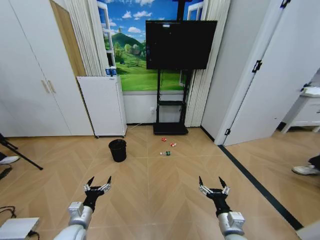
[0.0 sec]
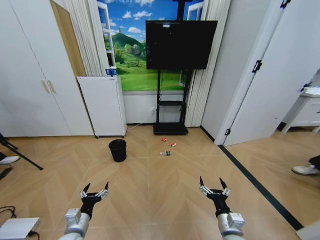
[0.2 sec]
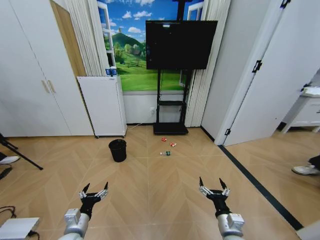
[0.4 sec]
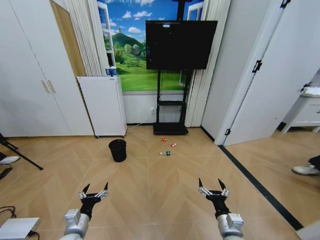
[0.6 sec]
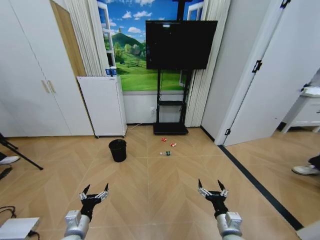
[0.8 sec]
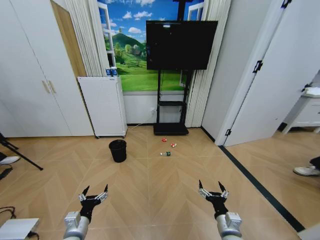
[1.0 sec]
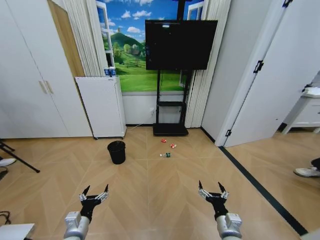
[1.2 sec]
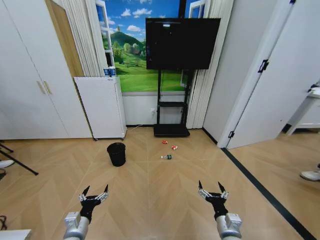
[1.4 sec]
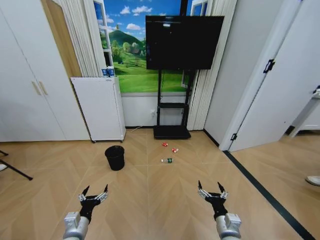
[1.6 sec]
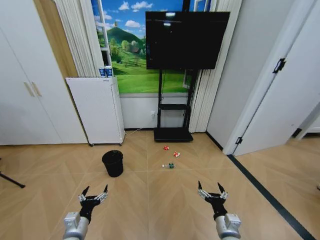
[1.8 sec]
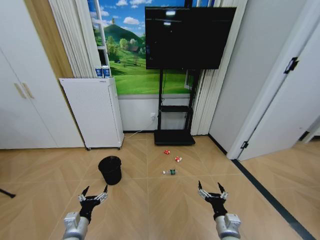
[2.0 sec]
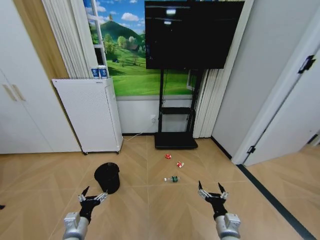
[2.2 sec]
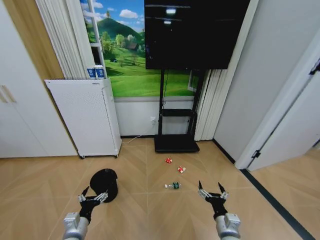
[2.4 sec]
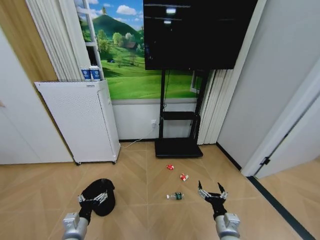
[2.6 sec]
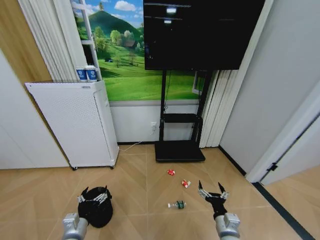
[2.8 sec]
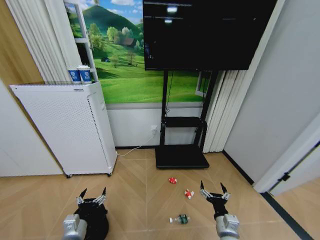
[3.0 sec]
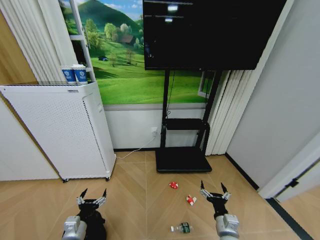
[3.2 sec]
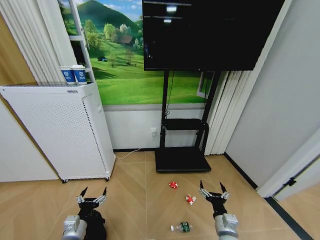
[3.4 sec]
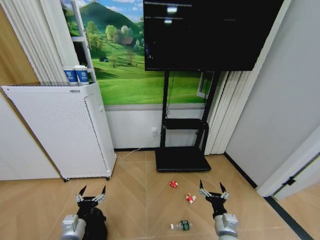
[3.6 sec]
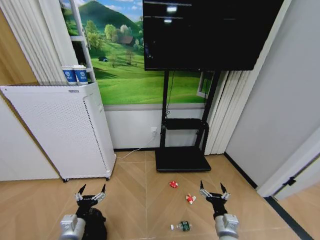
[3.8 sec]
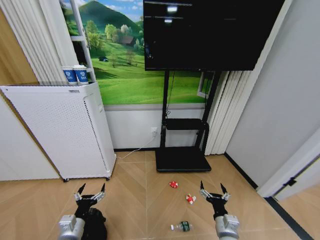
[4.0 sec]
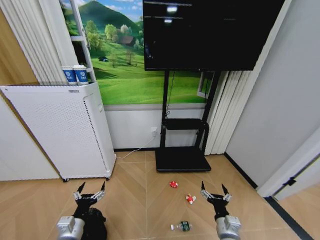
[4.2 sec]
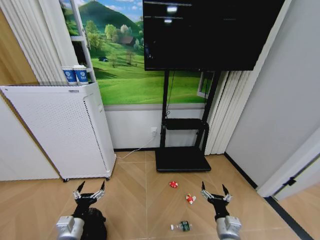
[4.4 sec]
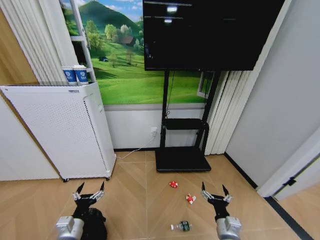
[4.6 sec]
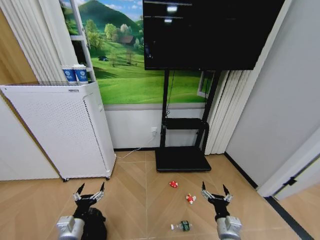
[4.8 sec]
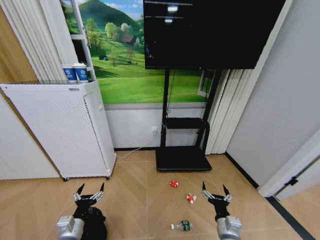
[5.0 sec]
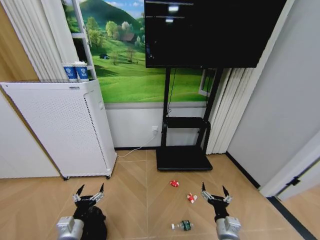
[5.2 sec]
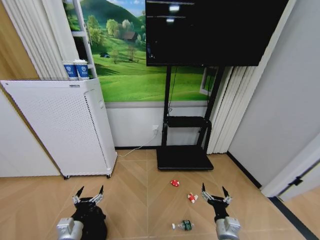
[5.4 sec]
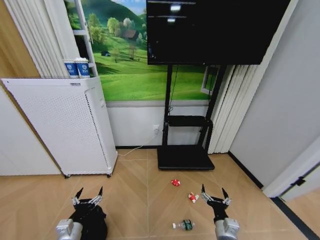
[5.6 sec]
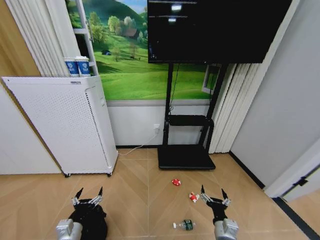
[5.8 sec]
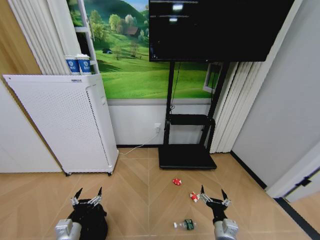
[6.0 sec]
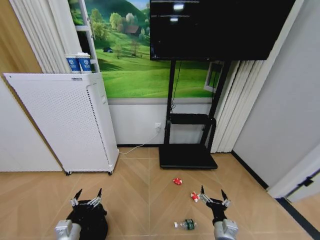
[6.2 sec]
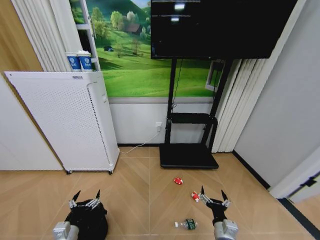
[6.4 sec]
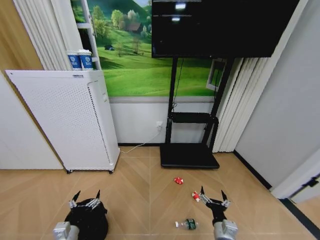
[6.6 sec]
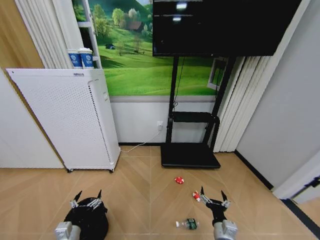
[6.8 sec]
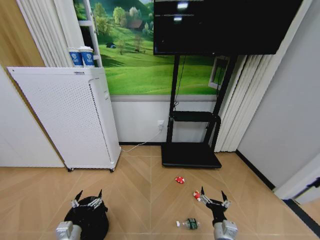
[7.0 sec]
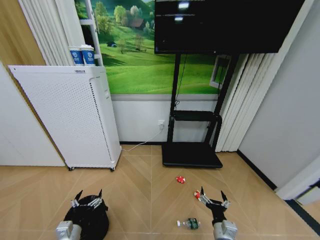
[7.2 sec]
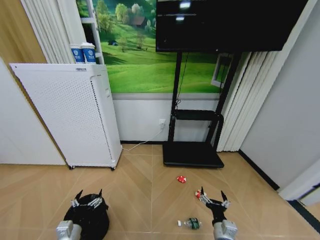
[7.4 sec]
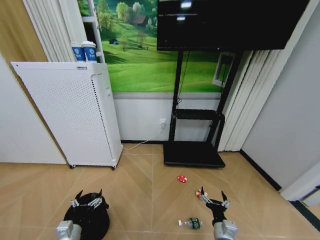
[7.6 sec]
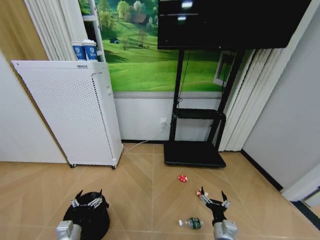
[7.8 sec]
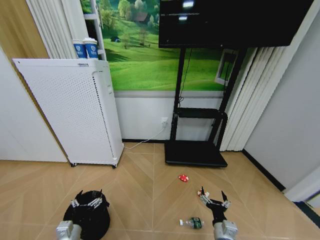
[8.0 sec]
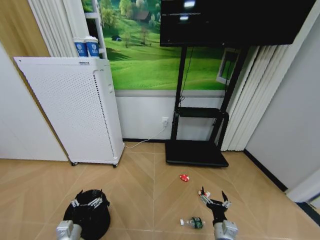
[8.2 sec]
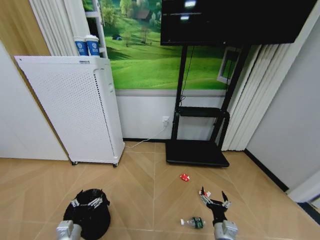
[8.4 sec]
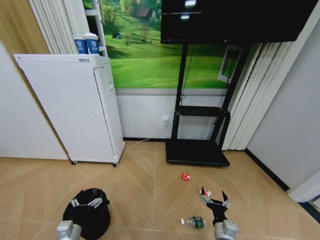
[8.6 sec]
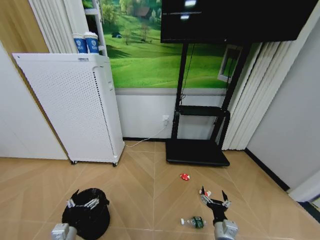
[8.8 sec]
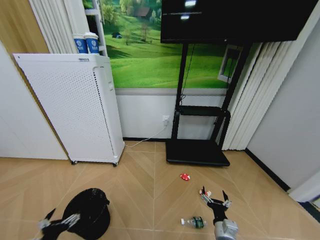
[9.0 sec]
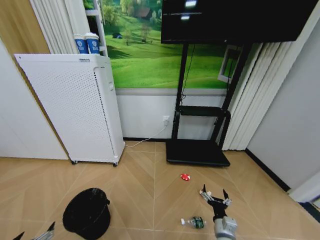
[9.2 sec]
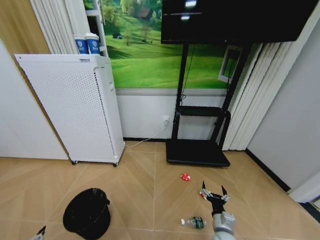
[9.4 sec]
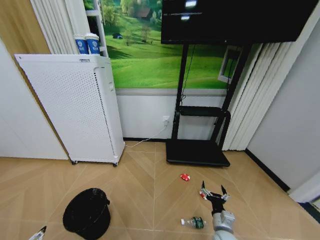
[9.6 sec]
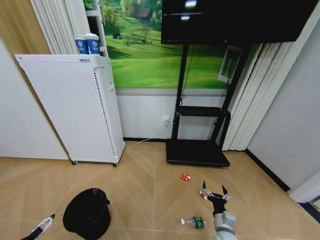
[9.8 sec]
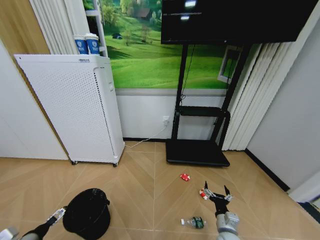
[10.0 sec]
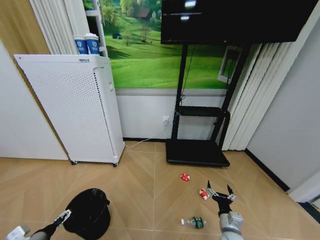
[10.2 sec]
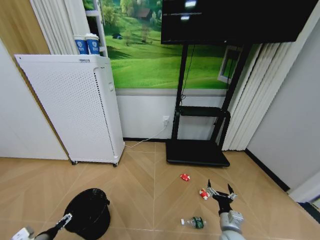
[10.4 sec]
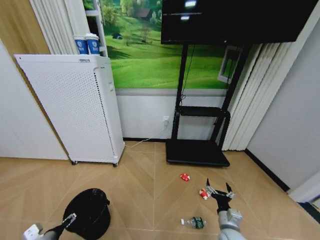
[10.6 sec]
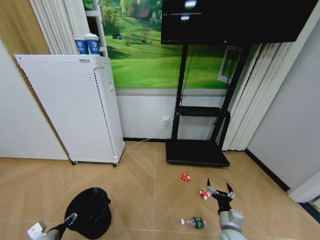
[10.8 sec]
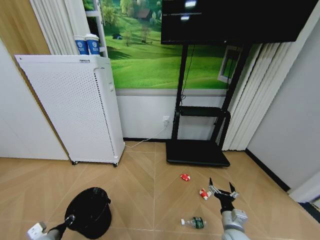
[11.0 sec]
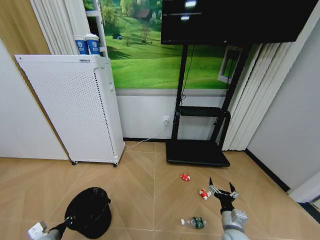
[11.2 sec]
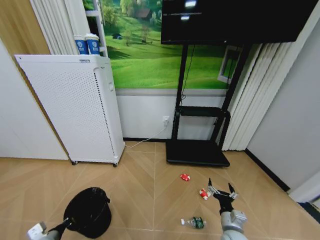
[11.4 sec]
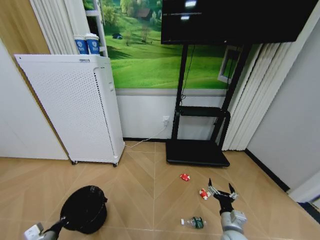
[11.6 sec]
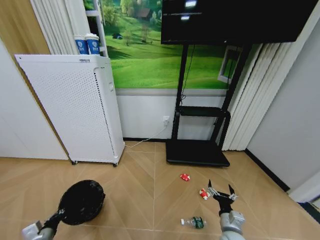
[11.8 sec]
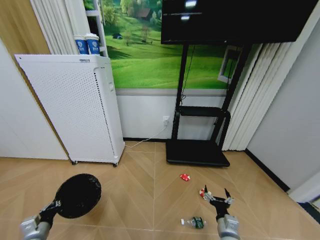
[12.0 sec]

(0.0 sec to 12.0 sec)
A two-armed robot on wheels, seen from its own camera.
Task of the whole recording: Pick up the trash bin and place the garbage on the floor into it.
3.0 sec - 4.4 sec: The grippers make only small movements.
7.6 sec - 9.0 sec: The left gripper moves backward, approximately 5 cm.
9.0 sec - 10.4 sec: The left gripper is displaced to the left and forward by roughly 10 cm.
10.4 sec - 12.0 sec: The left gripper closes its fingers.

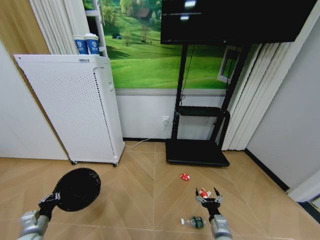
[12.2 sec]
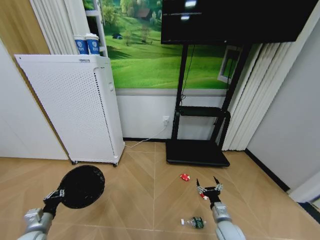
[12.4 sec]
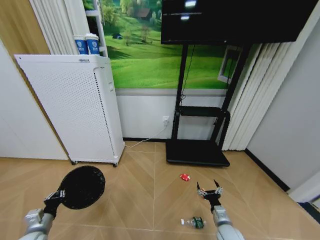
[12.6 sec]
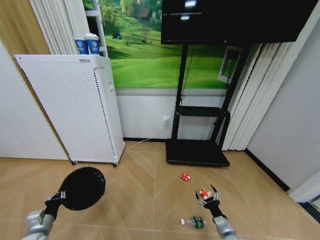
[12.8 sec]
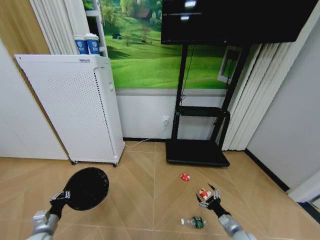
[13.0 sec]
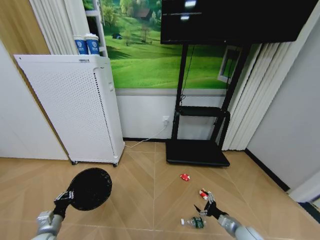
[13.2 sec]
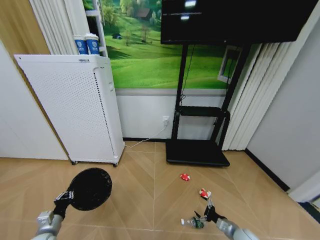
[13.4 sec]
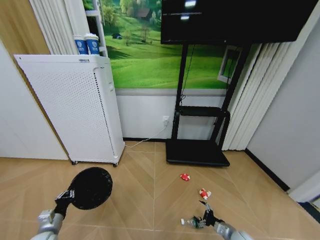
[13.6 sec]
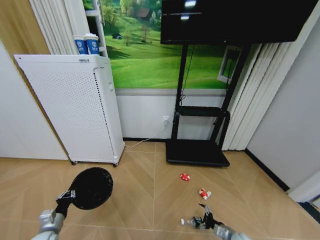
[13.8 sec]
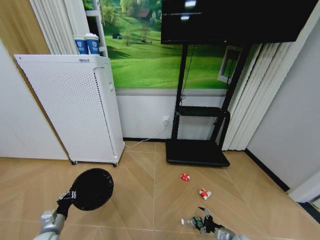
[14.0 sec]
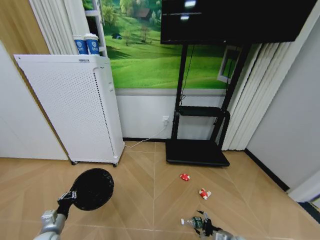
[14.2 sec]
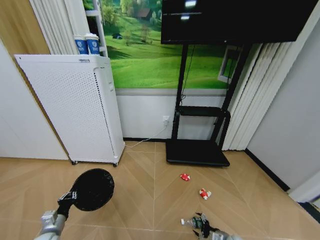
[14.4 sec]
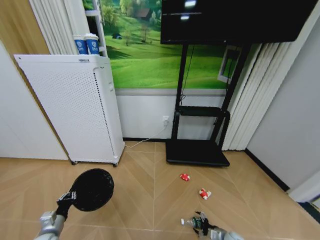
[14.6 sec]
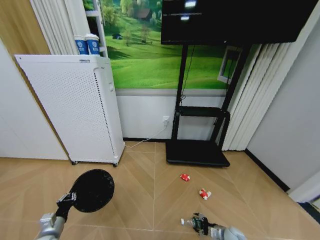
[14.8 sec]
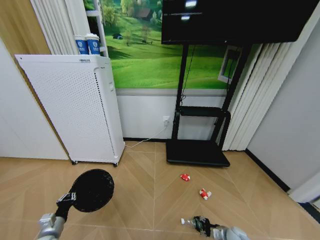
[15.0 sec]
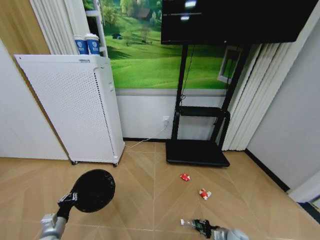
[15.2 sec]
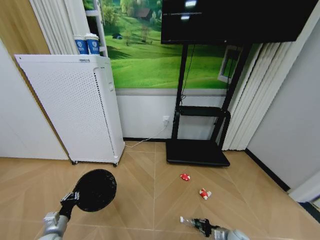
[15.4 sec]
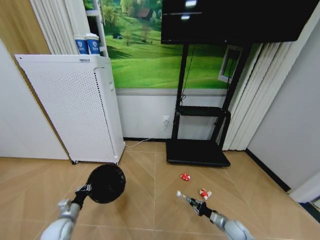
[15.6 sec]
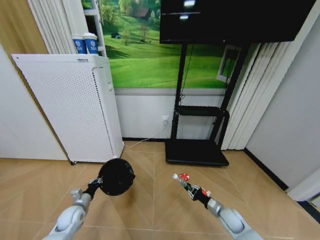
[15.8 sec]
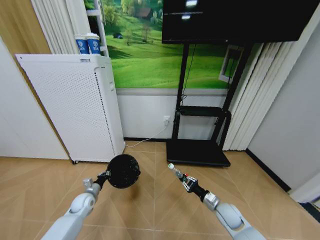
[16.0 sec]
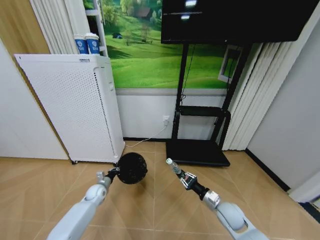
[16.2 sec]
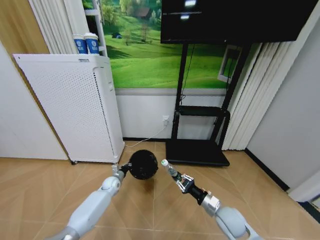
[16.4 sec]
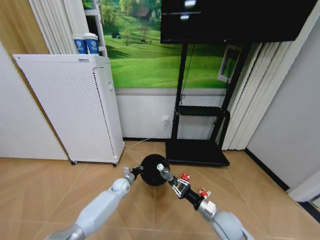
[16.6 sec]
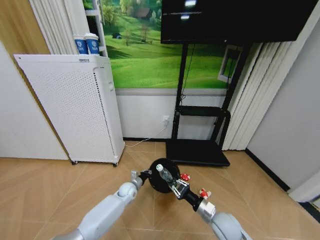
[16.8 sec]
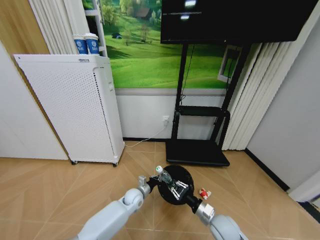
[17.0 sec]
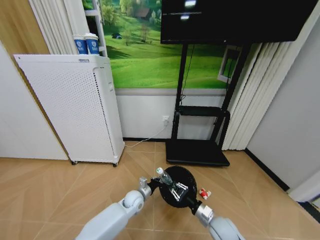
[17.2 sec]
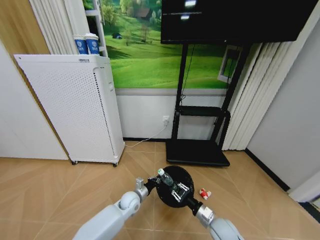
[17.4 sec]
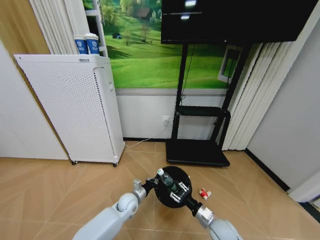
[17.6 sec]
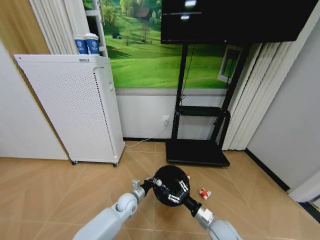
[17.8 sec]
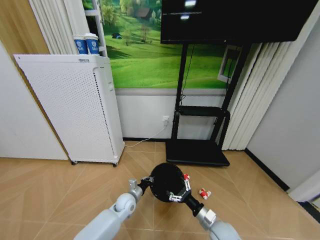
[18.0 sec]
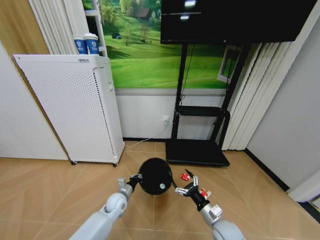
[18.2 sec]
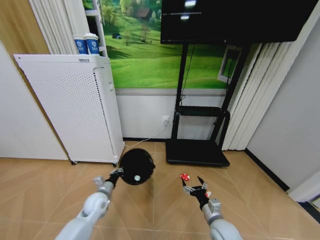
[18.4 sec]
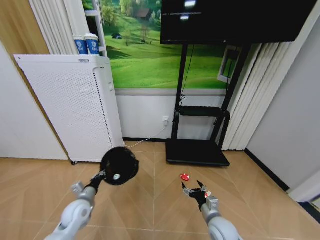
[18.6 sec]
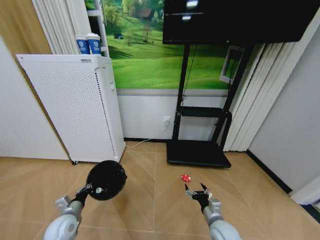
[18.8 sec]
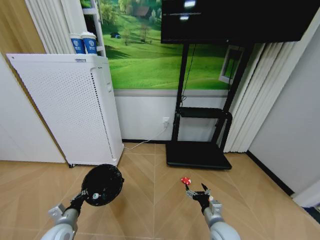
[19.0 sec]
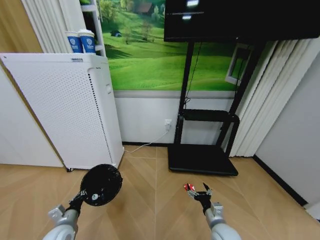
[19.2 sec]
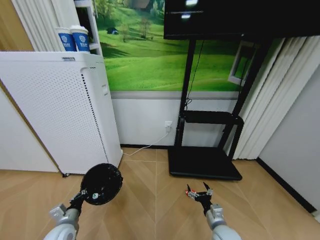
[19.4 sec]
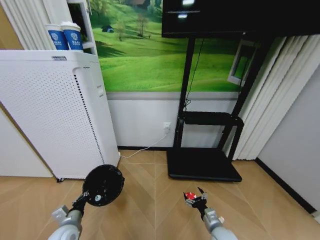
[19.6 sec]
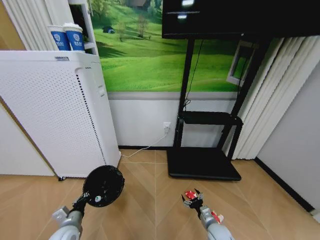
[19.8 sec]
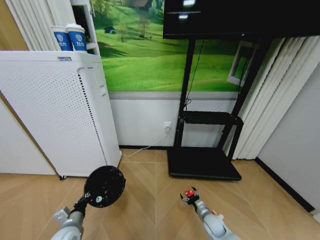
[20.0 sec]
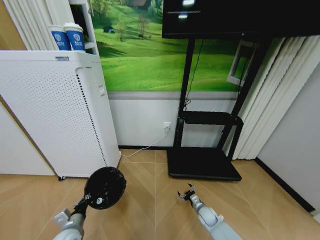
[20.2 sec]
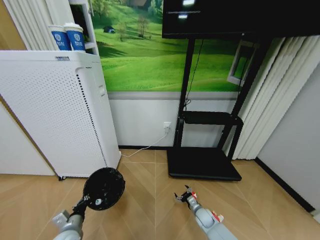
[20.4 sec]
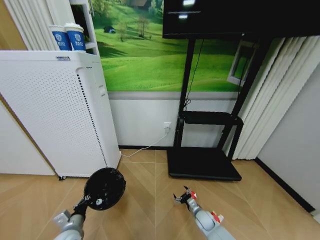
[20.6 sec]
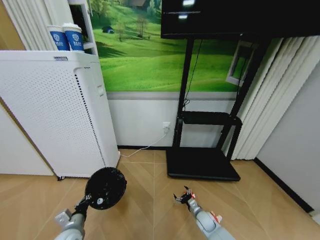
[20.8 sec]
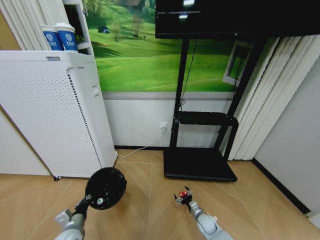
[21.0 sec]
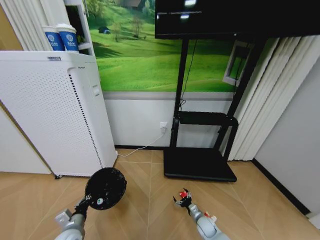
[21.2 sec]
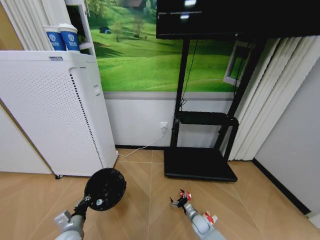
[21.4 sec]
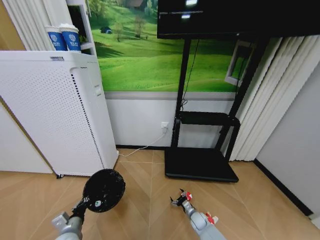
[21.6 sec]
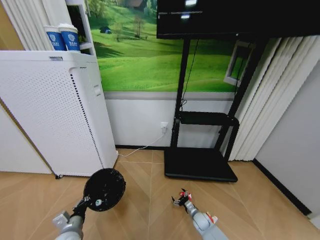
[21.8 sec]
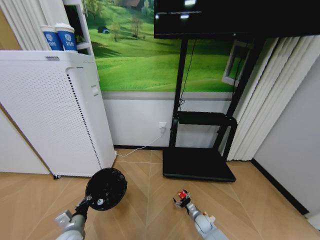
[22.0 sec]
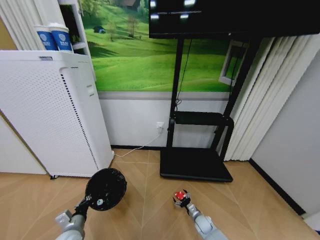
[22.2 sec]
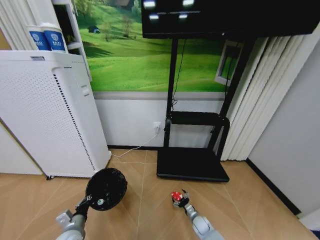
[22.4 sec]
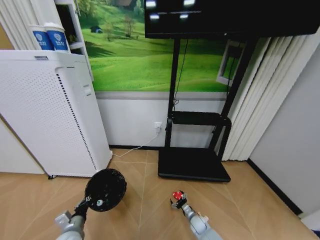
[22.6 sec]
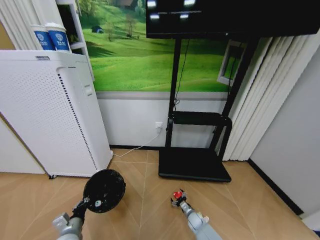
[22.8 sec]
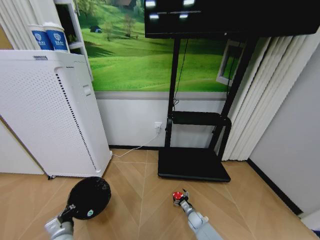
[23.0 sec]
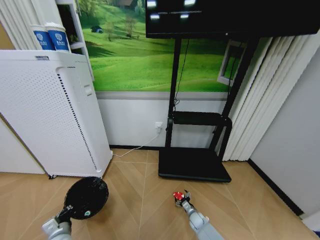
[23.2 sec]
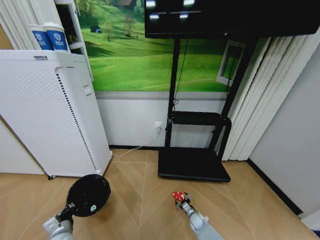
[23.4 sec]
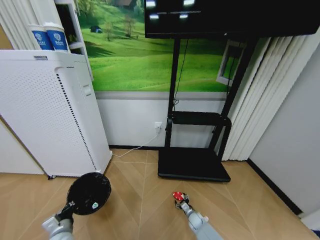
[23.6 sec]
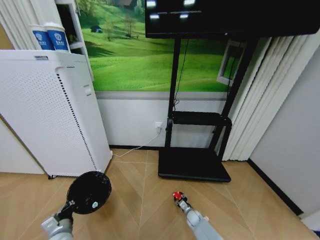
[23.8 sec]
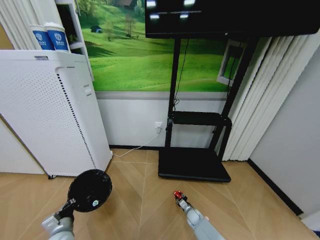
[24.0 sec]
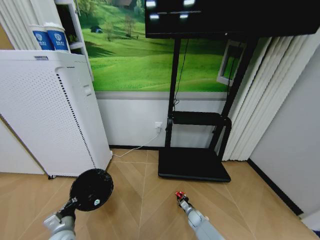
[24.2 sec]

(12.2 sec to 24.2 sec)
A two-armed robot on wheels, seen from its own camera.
Task of the whole recording: Pick up the trash bin and place the garbage on the floor into it.
12.2 sec - 13.8 sec: The right gripper goes about 15 cm to the right and downward.
13.8 sec - 15.2 sec: The right gripper shifts approximately 5 cm downward, and closes up.
15.2 sec - 16.6 sec: The right gripper heads upward and to the left, covering roughly 25 cm, while the left gripper moves forward and to the right, some 35 cm.
16.6 sec - 18.2 sec: The left gripper shifts some 10 cm backward, while the right gripper opens.
18.2 sec - 19.8 sec: The right gripper shifts roughly 10 cm downward. Meanwhile the left gripper is displaced to the left and backward by about 20 cm.
19.8 sec - 21.2 sec: The right gripper shifts roughly 10 cm downward and forward.
22.6 sec - 24.2 sec: The right gripper closes up.
